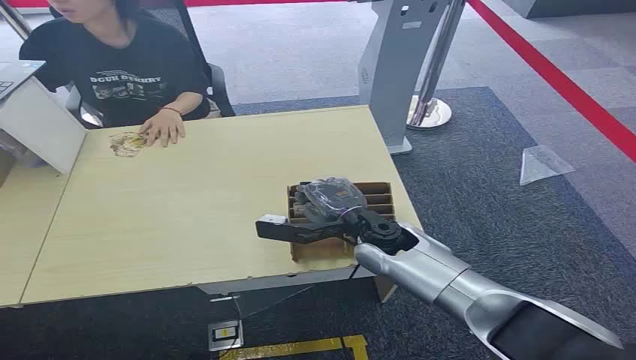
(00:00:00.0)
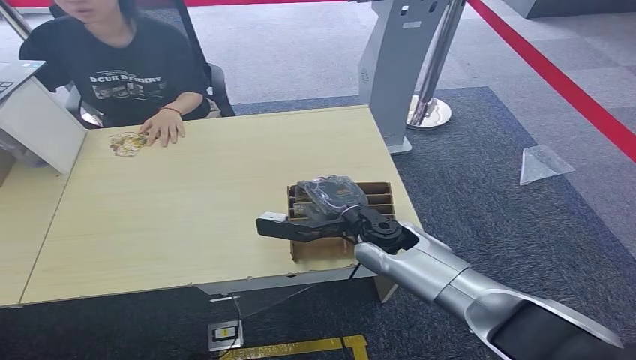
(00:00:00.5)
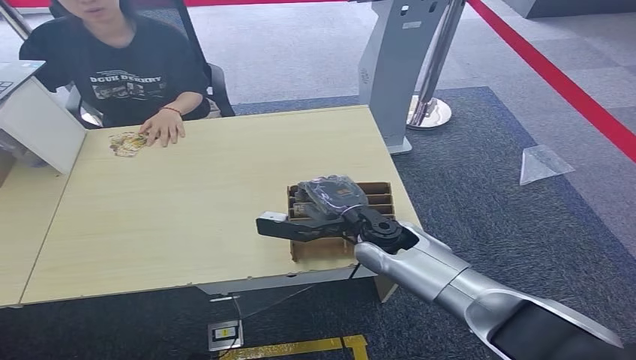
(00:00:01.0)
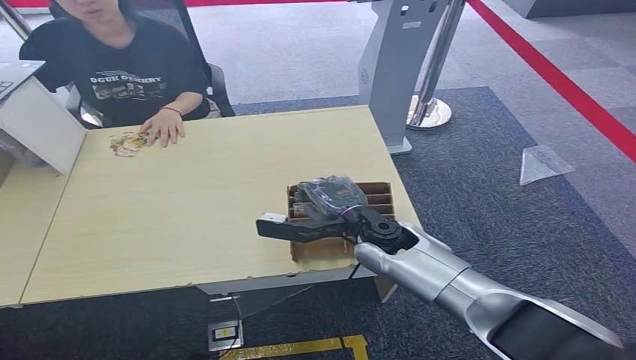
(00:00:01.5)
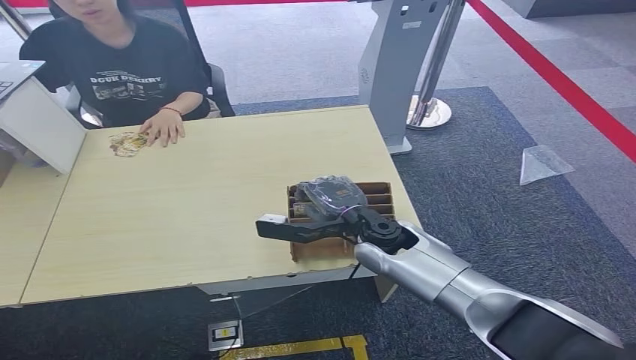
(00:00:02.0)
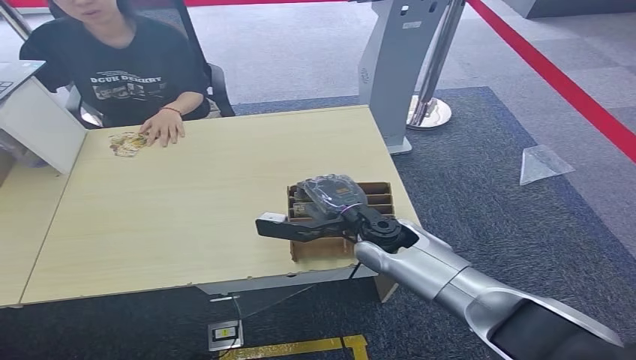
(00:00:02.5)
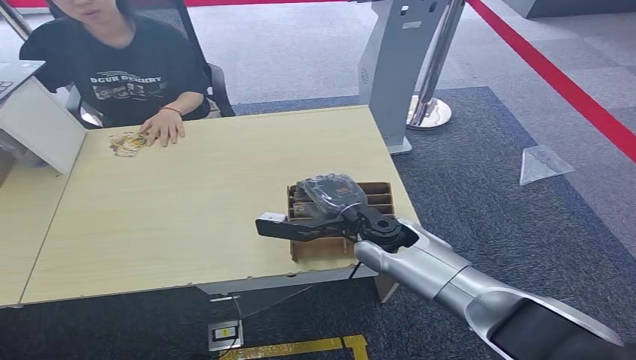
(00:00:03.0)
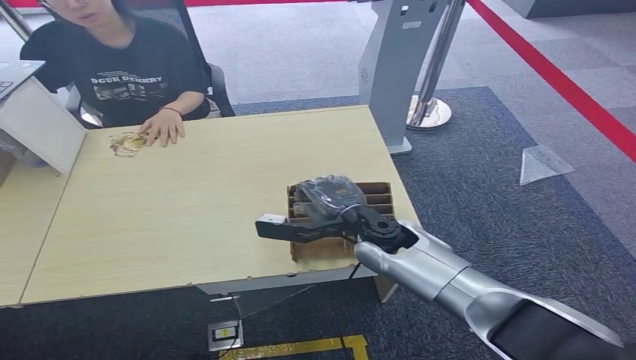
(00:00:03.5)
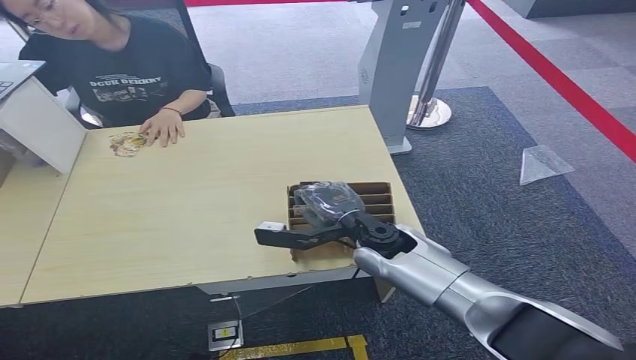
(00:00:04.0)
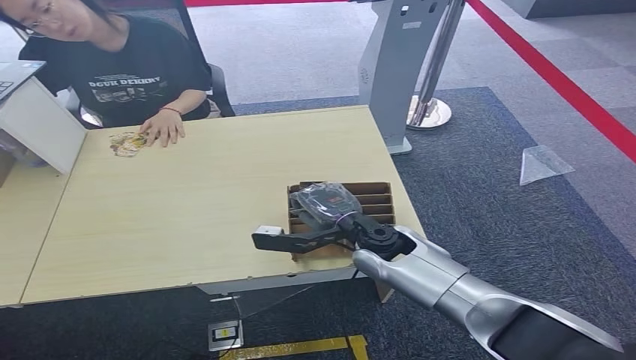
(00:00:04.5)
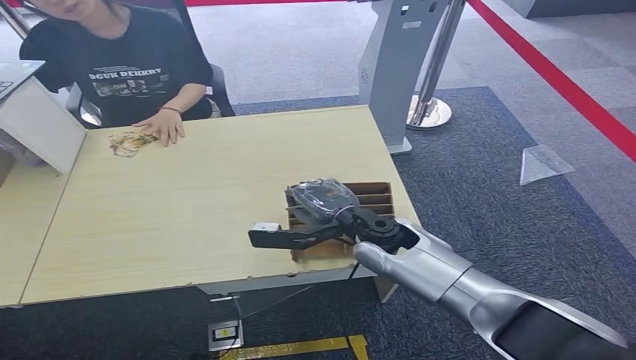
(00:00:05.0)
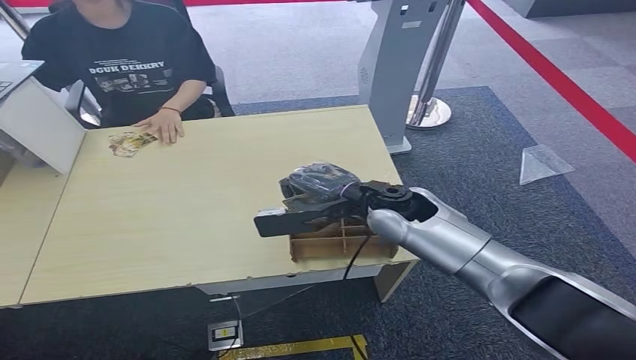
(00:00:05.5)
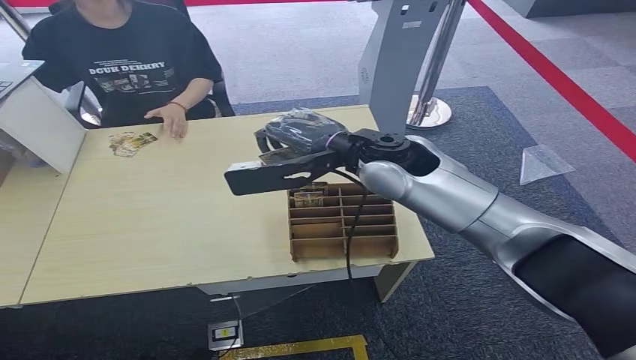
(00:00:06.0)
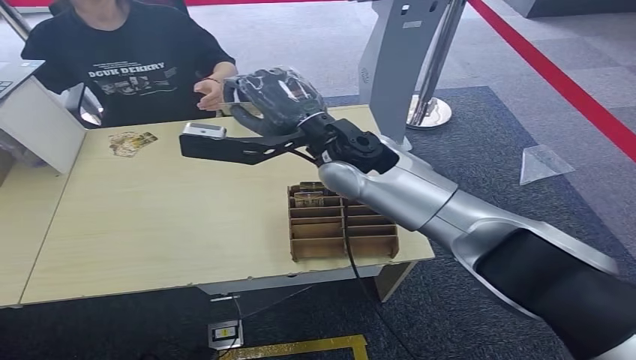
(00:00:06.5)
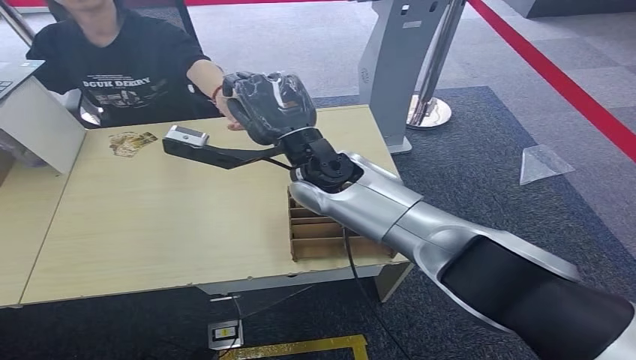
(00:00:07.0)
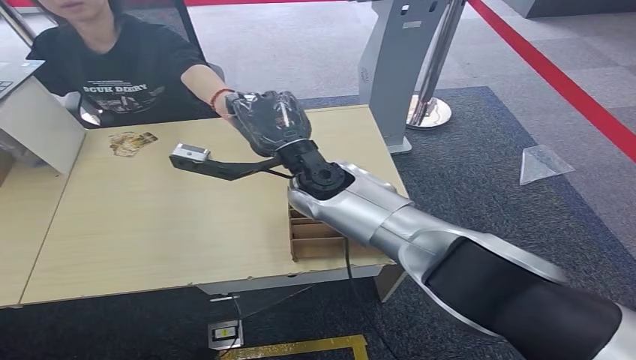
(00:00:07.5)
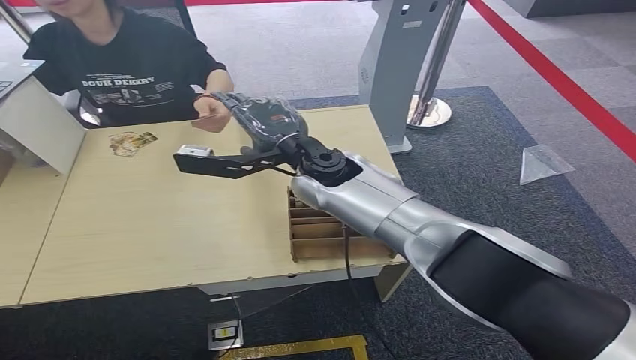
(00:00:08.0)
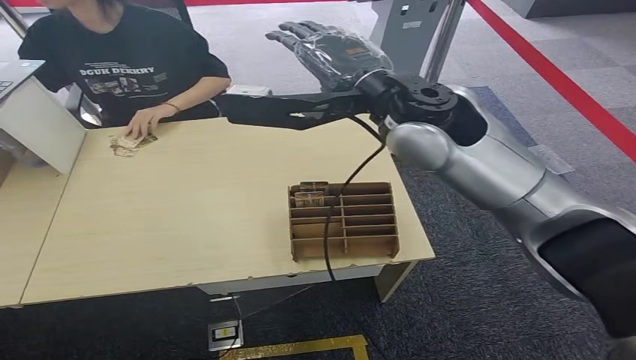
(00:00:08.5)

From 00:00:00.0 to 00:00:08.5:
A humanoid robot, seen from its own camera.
Step, from 00:00:00.0 to 00:00:05.0: Pick up the room card from the card holder.
Step, from 00:00:06.0 to 00:00:08.5: Hand the room card to the target.
From 00:00:02.0 to 00:00:04.0: There are only small adjustments of the hands.
